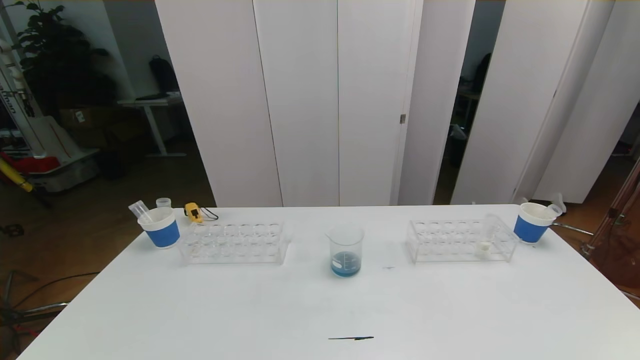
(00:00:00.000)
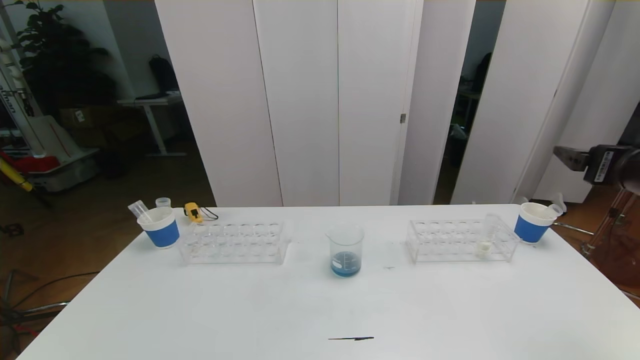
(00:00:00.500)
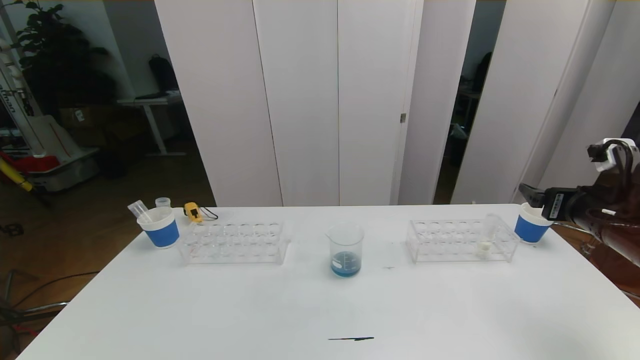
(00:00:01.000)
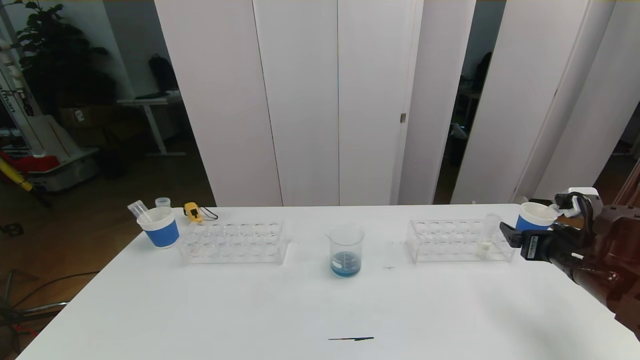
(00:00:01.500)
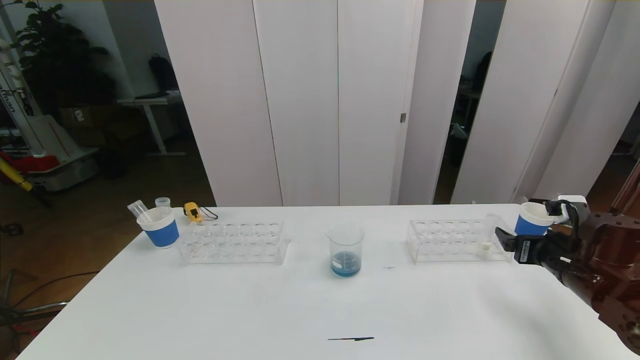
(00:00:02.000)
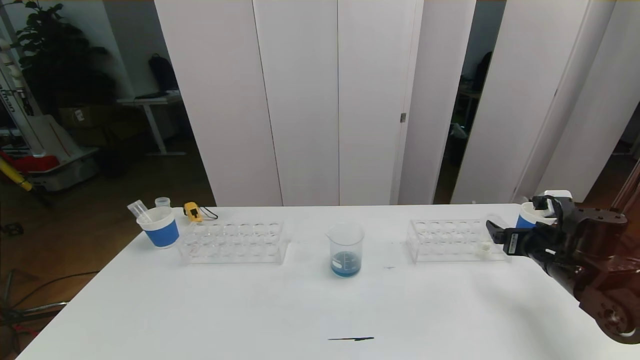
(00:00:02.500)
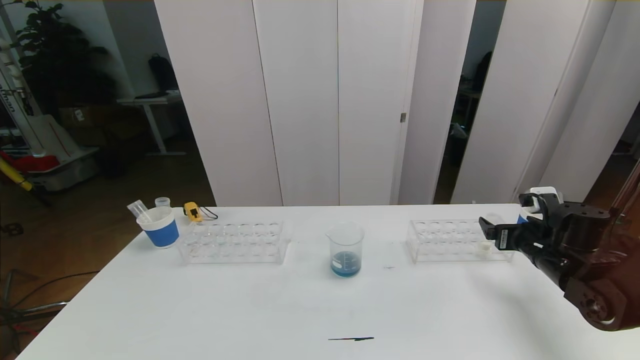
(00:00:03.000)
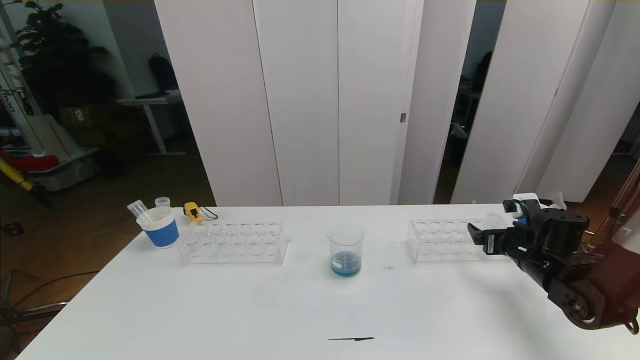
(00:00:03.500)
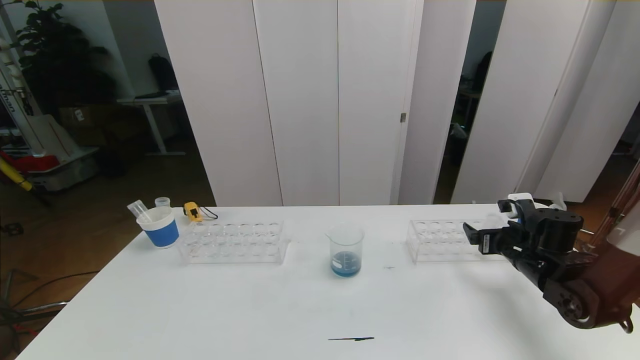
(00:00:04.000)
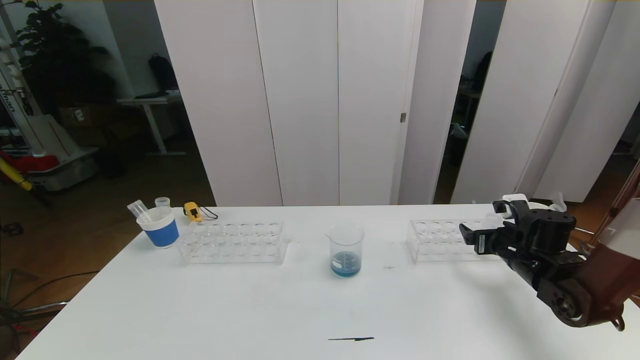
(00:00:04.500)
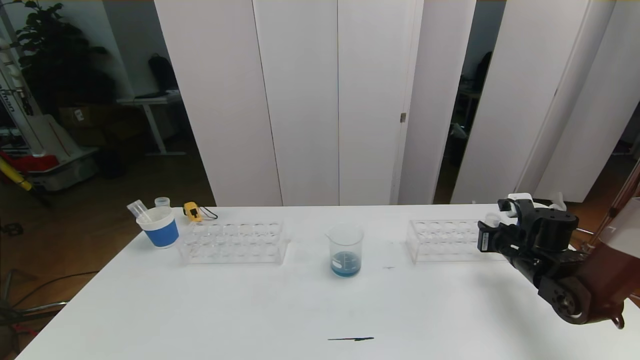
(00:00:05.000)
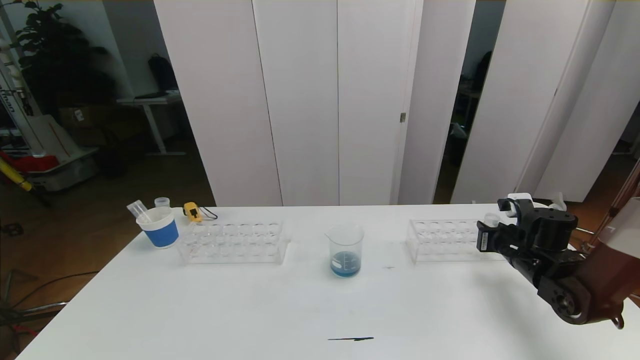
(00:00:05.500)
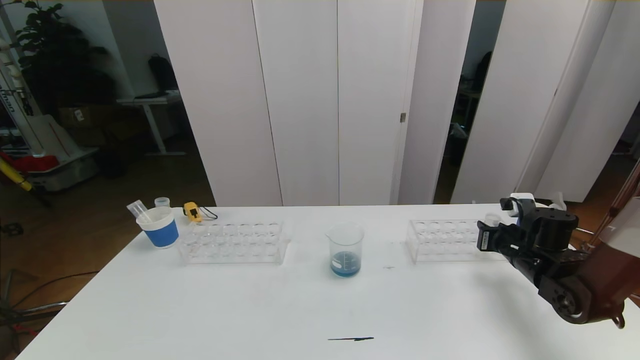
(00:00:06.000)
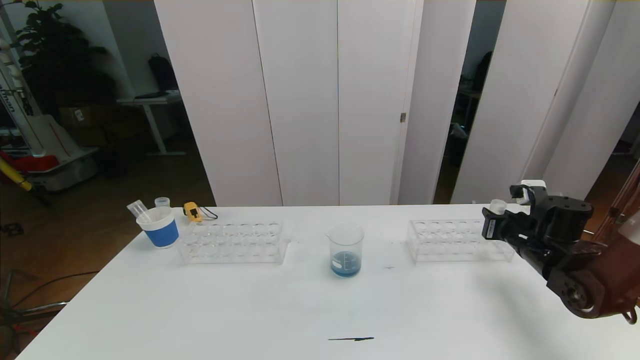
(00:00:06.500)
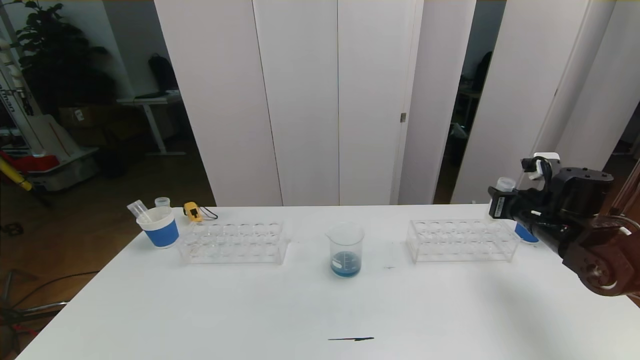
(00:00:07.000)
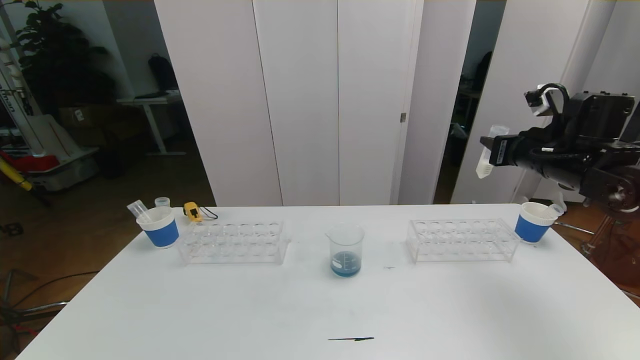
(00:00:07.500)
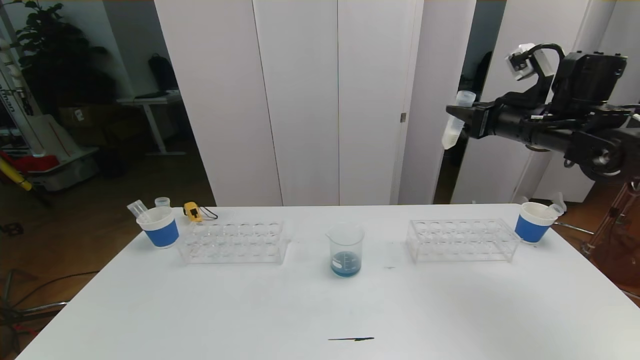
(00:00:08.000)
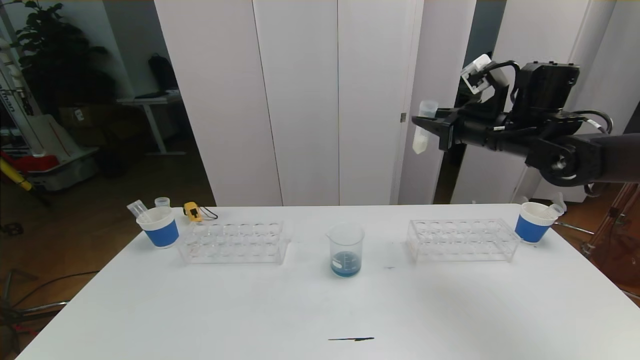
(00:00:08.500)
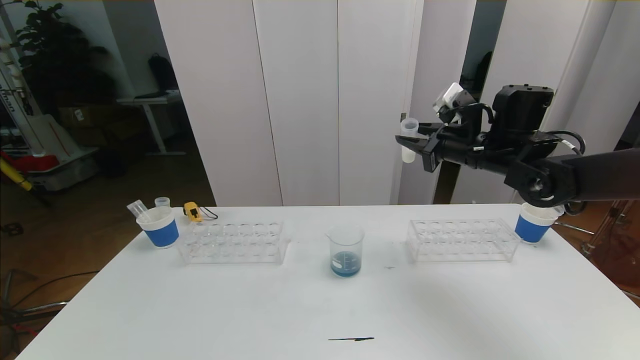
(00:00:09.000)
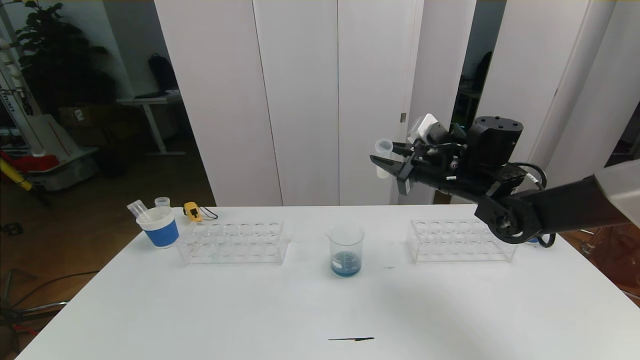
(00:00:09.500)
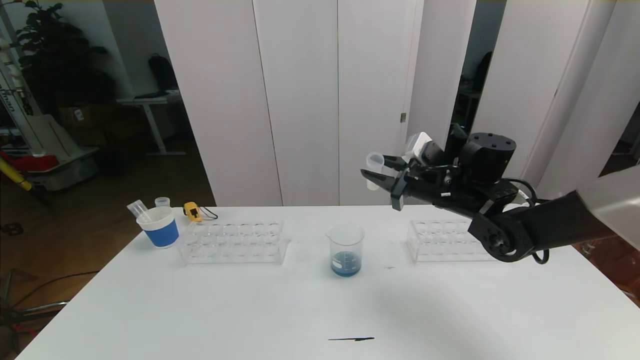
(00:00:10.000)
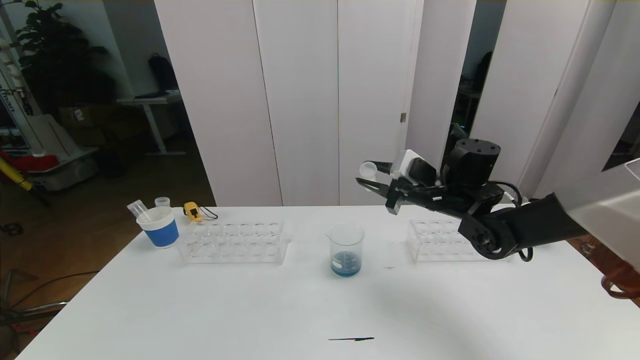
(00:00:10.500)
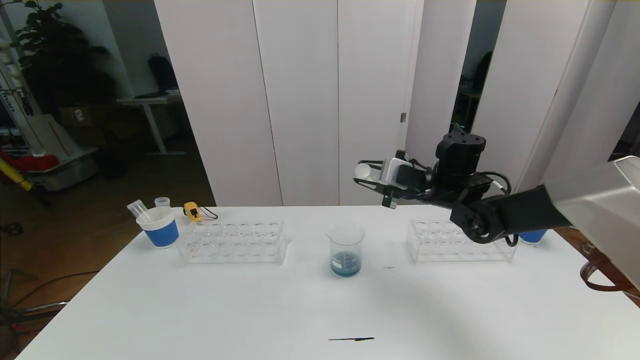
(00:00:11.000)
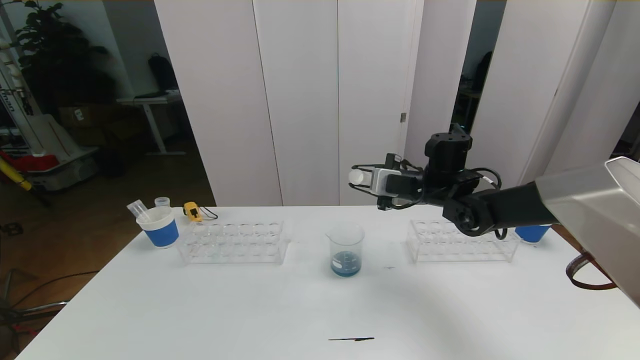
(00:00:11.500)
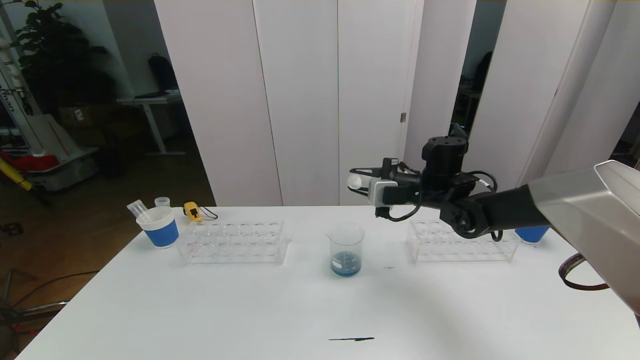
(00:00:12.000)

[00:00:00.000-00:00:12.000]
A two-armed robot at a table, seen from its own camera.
Task of the whole recording: pick up the test tube with red pigment the test tube with blue pigment and the test tube with white pigment by grippers and pour them into the beaker.
00:00:00.000 to 00:00:02.000: The right gripper shifts about 30 cm downward and forward.
00:00:02.000 to 00:00:04.000: The right gripper goes about 5 cm forward.
00:00:04.000 to 00:00:06.000: The right gripper closes up.
00:00:06.000 to 00:00:08.000: The right gripper goes about 25 cm upward.
00:00:08.000 to 00:00:10.000: The right gripper goes approximately 15 cm to the left and downward.
00:00:10.000 to 00:00:12.000: The right gripper heads forward, covering approximately 5 cm.

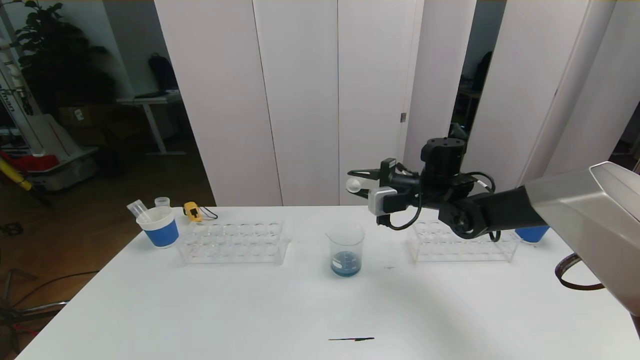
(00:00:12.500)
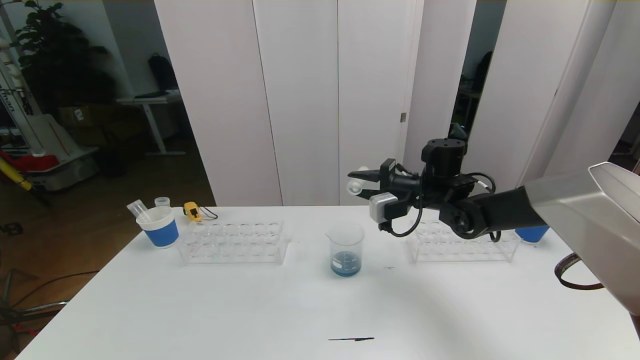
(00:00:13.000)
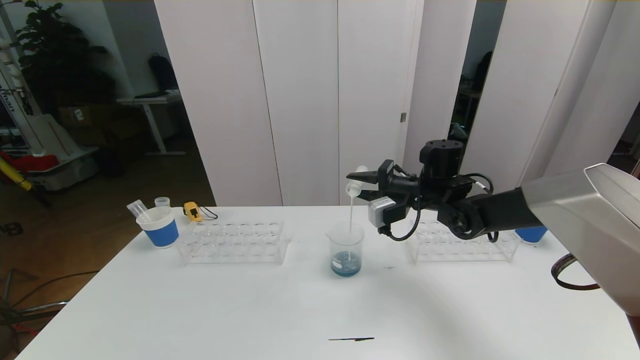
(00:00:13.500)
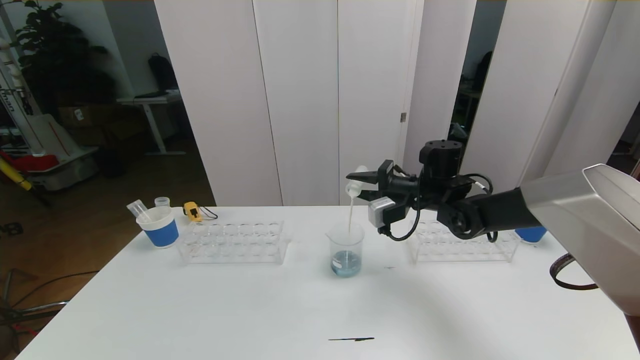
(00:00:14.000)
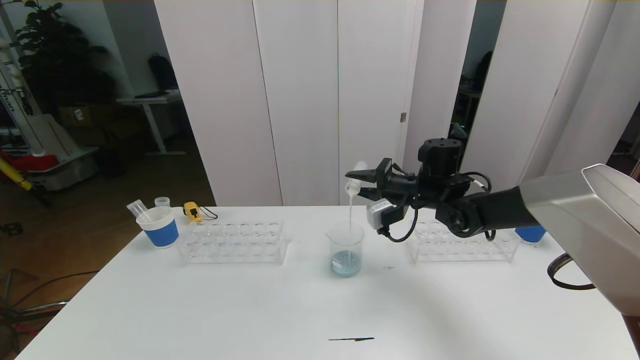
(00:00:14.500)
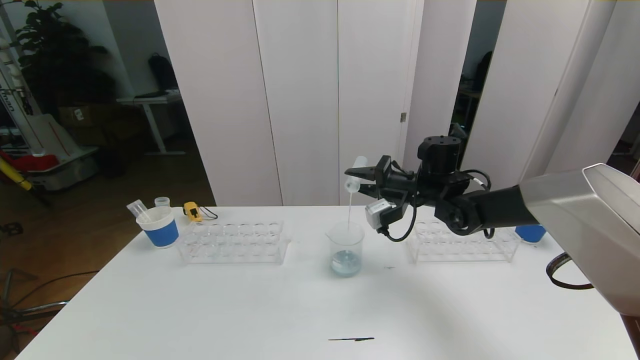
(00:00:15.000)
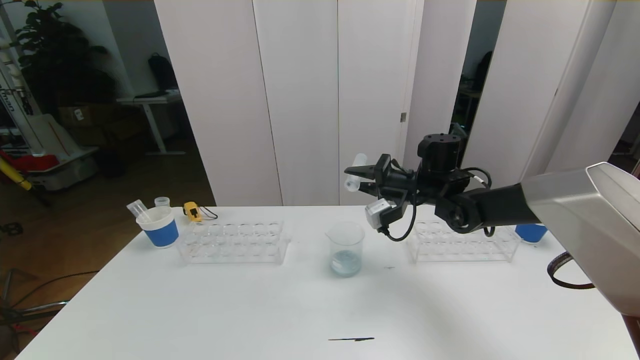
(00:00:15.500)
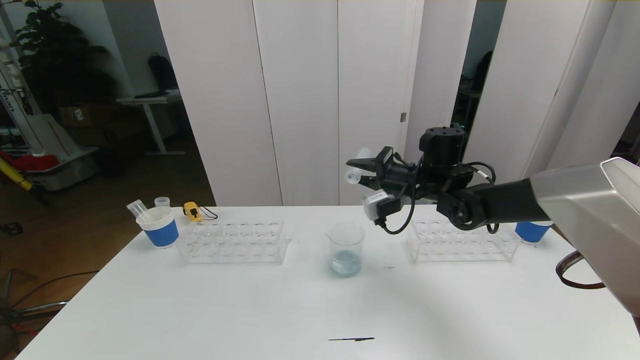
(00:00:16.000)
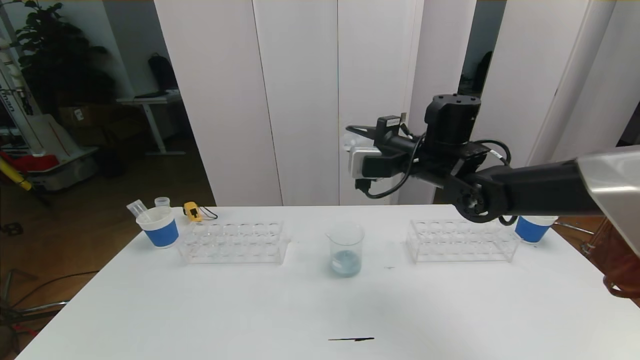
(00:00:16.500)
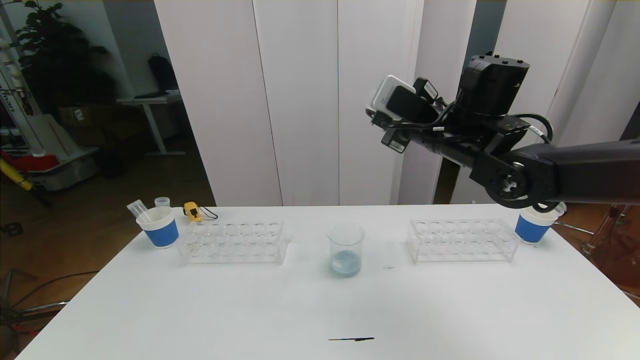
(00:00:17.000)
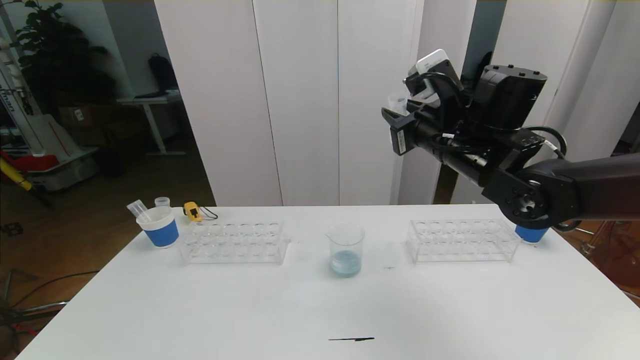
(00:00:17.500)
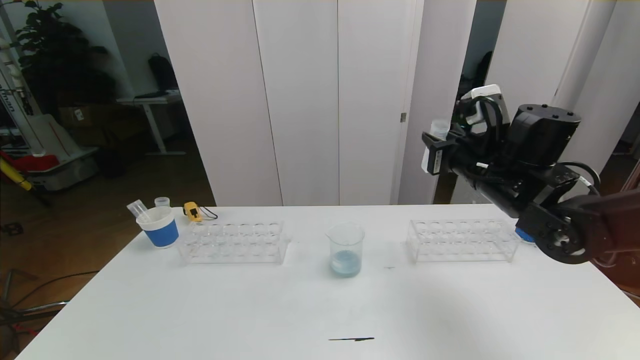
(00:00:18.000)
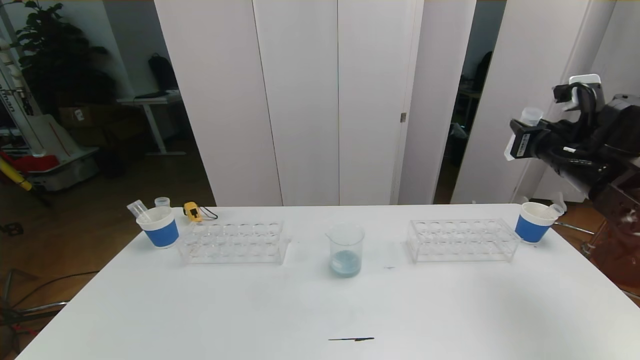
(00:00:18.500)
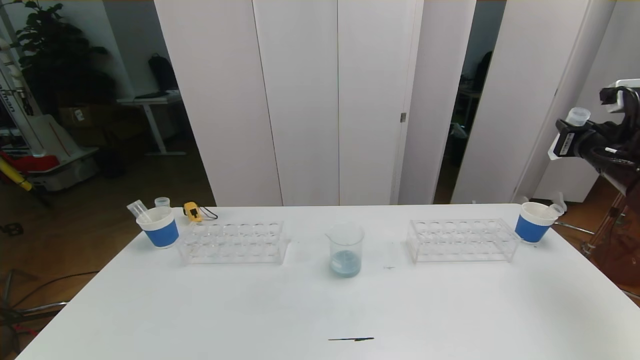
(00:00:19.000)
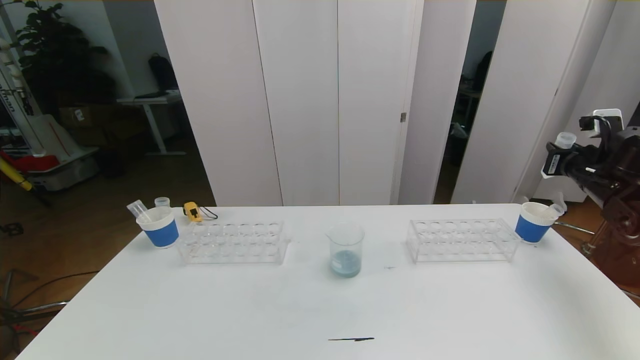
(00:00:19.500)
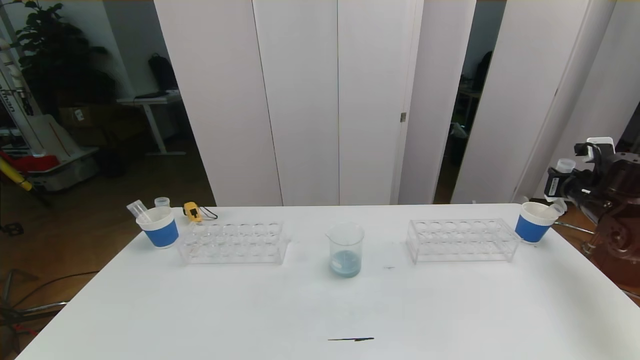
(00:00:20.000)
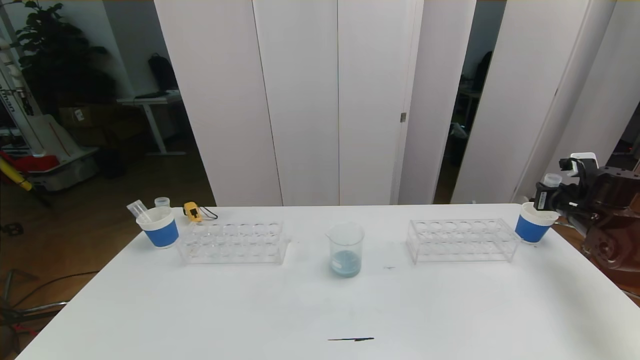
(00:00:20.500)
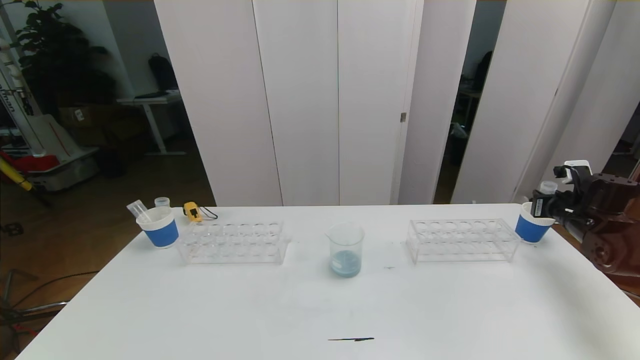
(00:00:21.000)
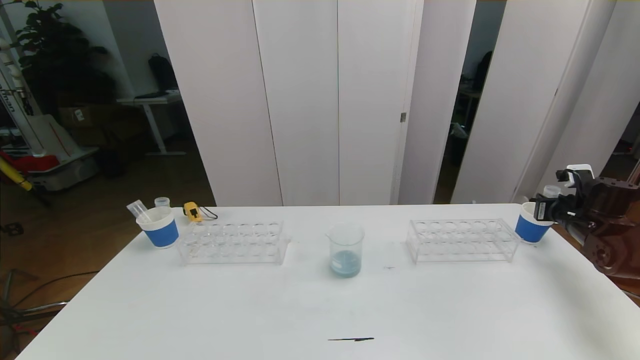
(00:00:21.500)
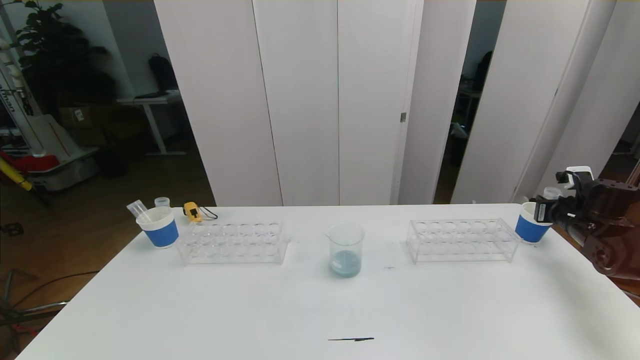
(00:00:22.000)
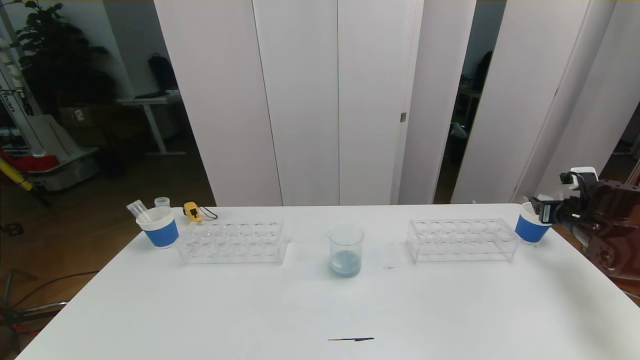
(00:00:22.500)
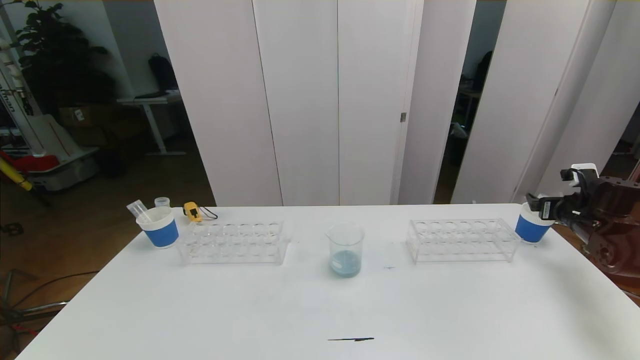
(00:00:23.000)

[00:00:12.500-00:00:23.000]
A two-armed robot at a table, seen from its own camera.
Task of the whole recording: pick up the test tube with red pigment the test tube with blue pigment and the test tube with white pigment by grippers and pour them into the beaker.
00:00:12.500 to 00:00:14.500: The grippers stay close to where they were, moving slightly.
00:00:14.500 to 00:00:16.500: The right gripper moves upward, roughly 10 cm.
00:00:16.500 to 00:00:19.000: The right gripper goes some 30 cm to the right.
00:00:19.000 to 00:00:21.000: The right gripper goes approximately 15 cm downward.
00:00:21.000 to 00:00:23.000: The right gripper opens.
